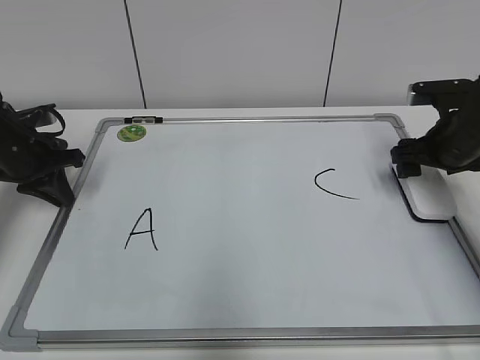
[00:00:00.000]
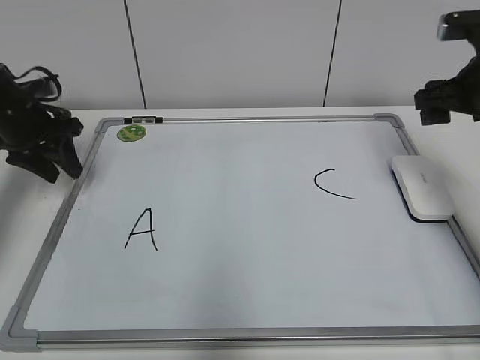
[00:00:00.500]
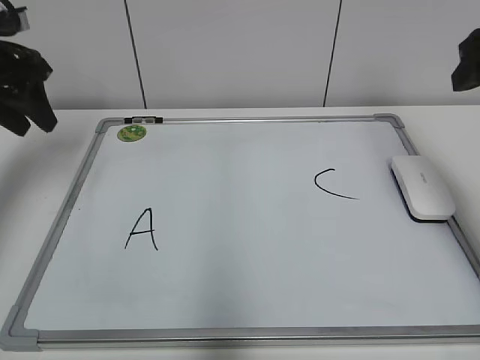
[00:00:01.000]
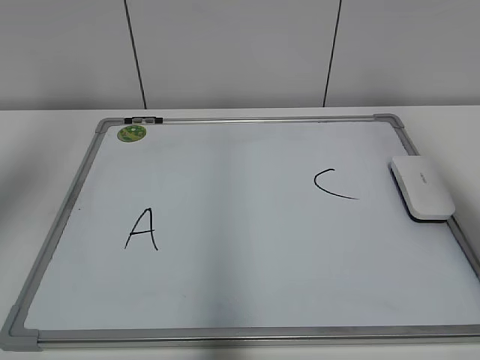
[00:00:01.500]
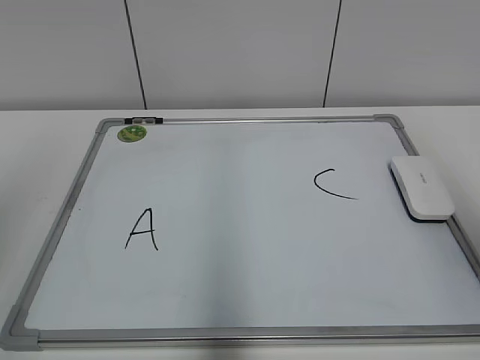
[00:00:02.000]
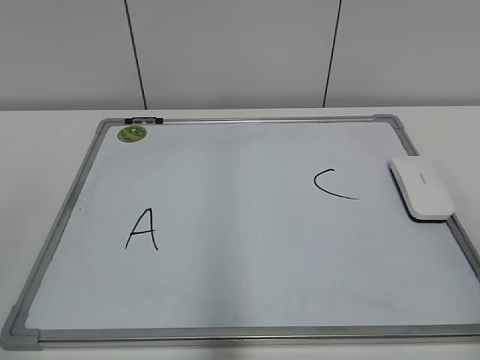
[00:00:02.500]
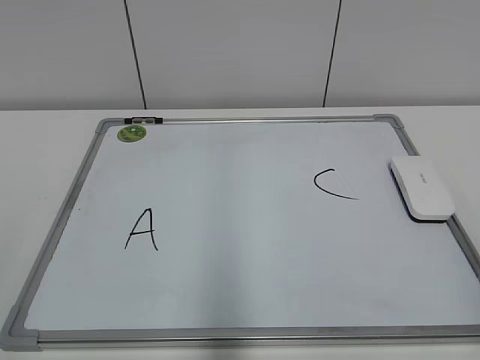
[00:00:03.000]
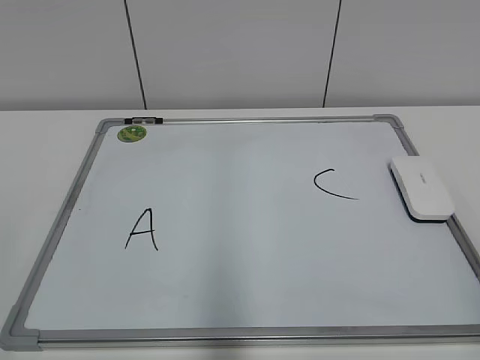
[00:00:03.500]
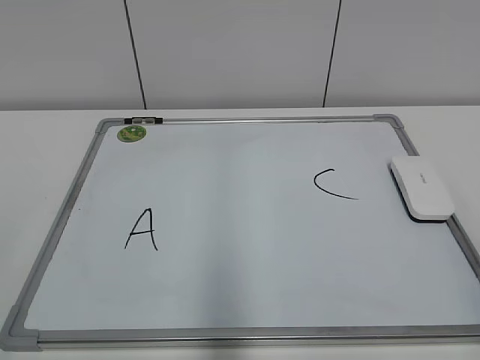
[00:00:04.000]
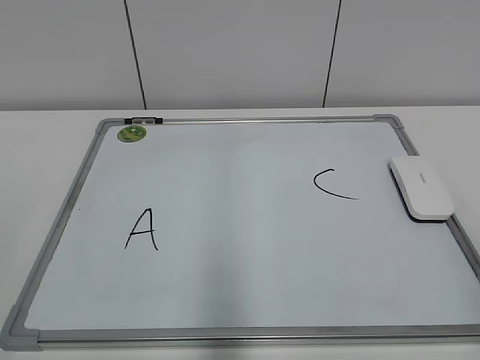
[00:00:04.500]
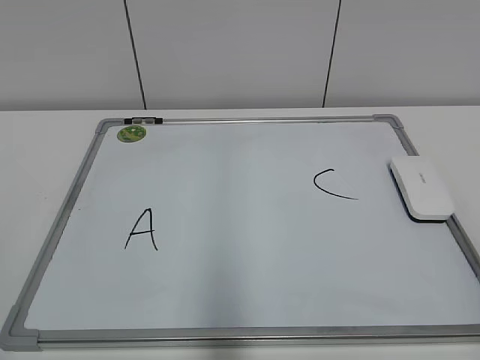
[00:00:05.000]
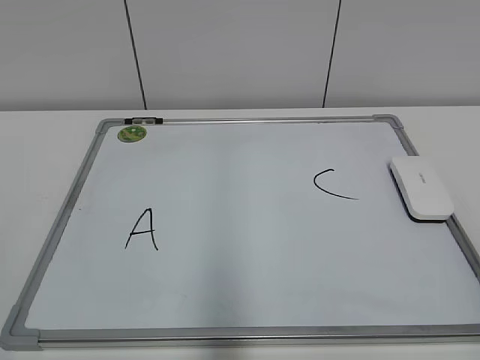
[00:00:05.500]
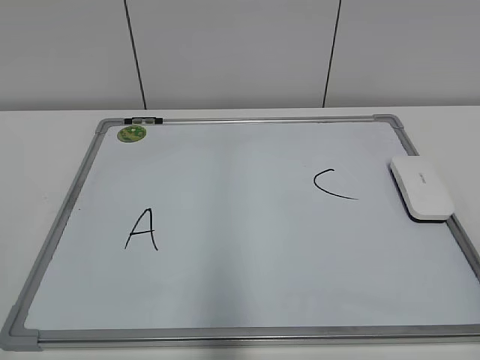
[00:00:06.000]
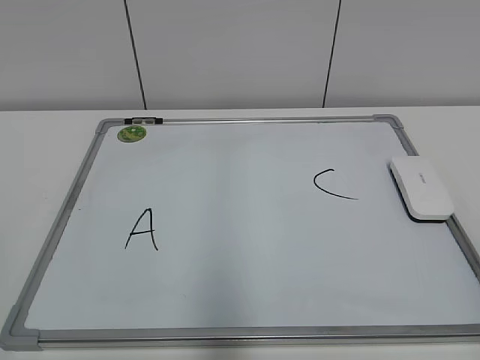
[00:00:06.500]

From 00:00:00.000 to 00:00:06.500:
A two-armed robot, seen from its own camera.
Task of the whole recording: pick up the eraser on the blackboard and erase the letter "B".
From 00:00:00.000 to 00:00:02.000: The two grippers go roughly 35 cm backward and upward. The right gripper closes up. The left gripper opens up.
From 00:00:02.000 to 00:00:04.500: The right gripper goes about 15 cm downward and backward.
